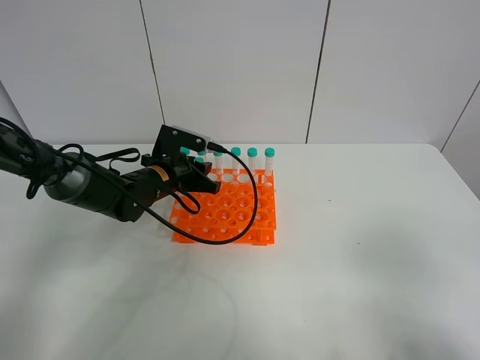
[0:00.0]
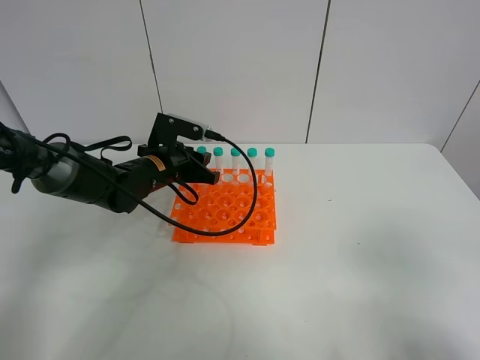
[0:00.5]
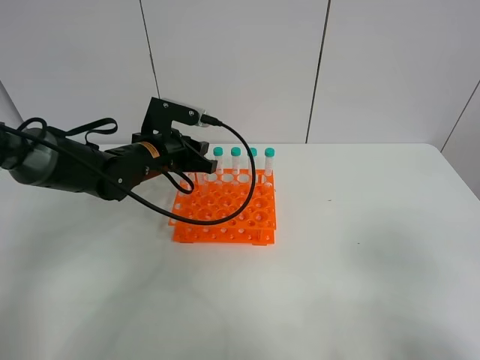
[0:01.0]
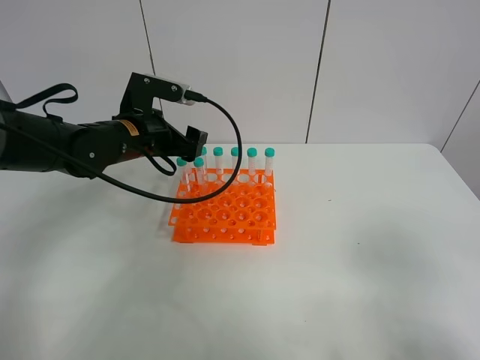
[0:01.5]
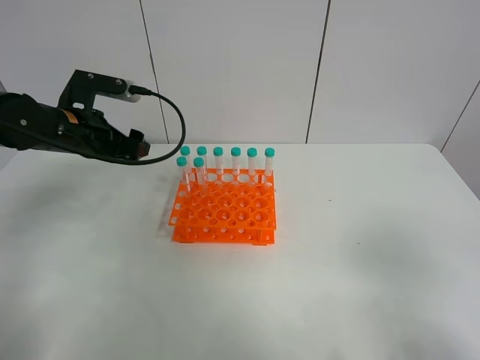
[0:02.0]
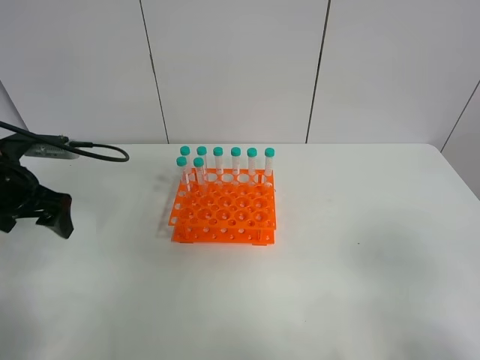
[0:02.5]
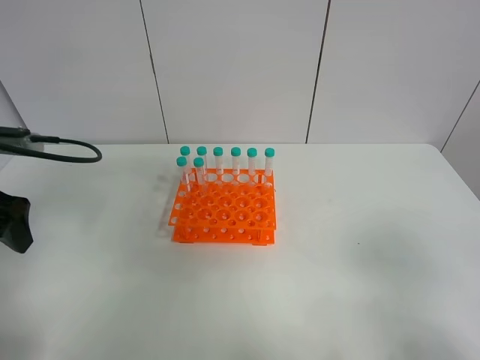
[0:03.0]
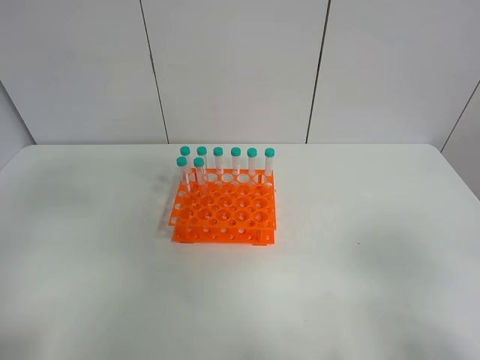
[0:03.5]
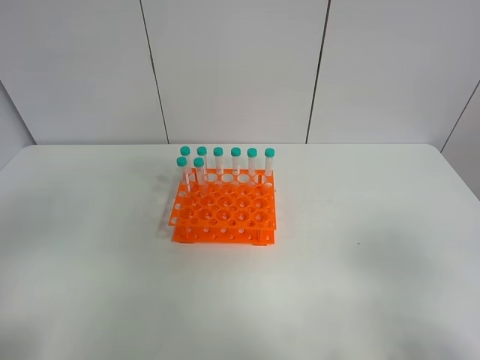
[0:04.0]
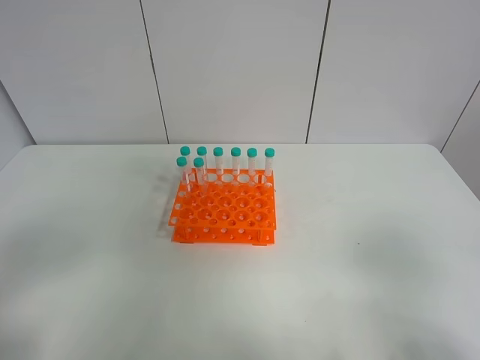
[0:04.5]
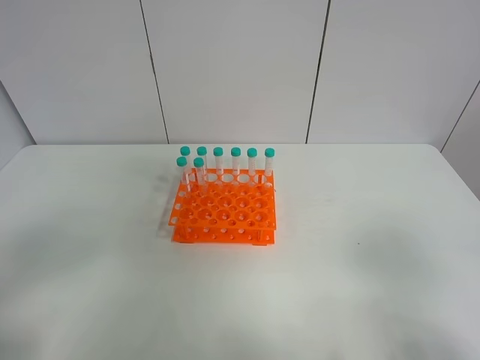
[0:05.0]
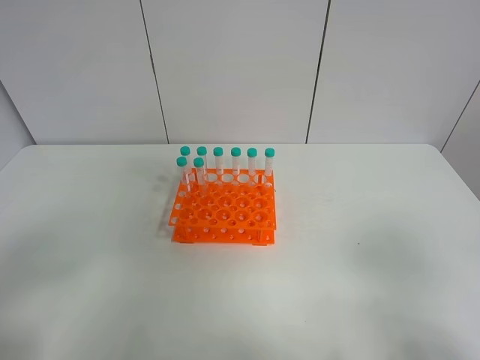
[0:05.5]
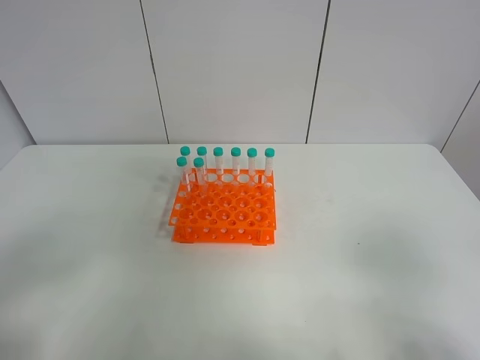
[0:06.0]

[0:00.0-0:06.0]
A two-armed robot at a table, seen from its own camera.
Task of the whole recording: Put the test tube on the table back onto the test tube rack.
0:00.0 to 0:02.0: The left gripper heads upward and to the left, covering about 15 cm, and opens.
0:02.0 to 0:04.0: The left gripper heads backward and upward, covering roughly 40 cm.
0:04.0 to 0:06.0: The left gripper goes roughly 10 cm downward.
